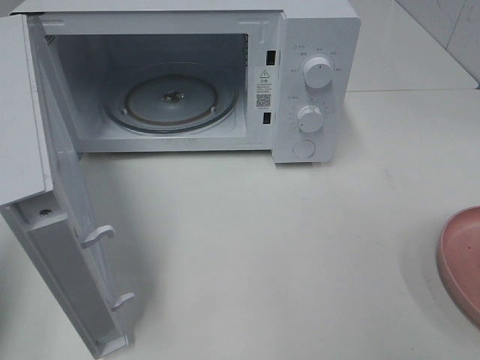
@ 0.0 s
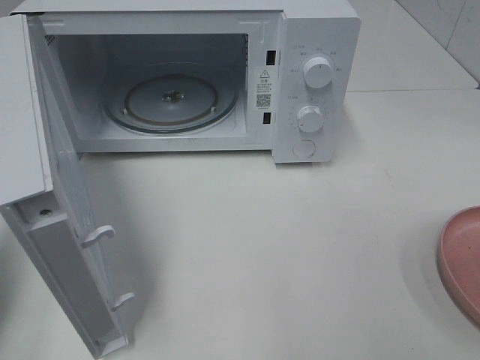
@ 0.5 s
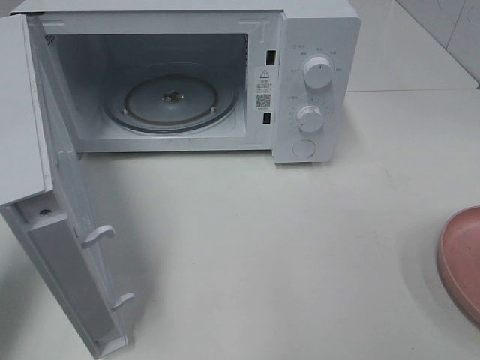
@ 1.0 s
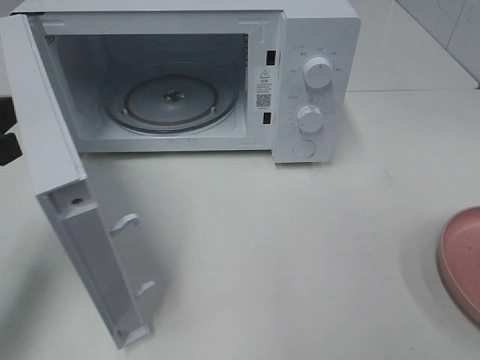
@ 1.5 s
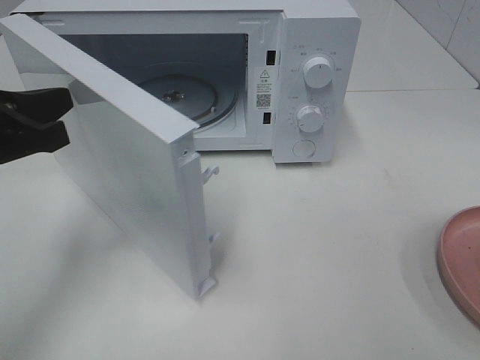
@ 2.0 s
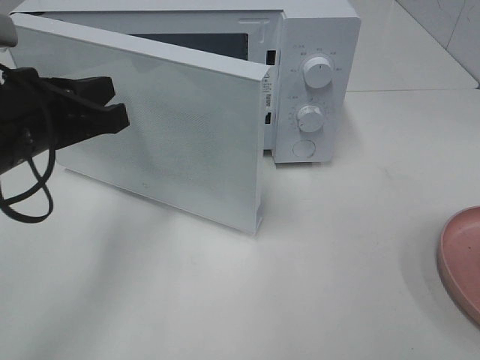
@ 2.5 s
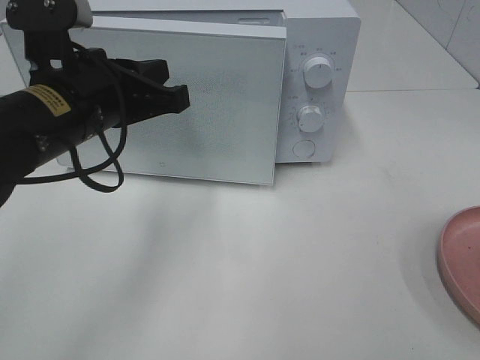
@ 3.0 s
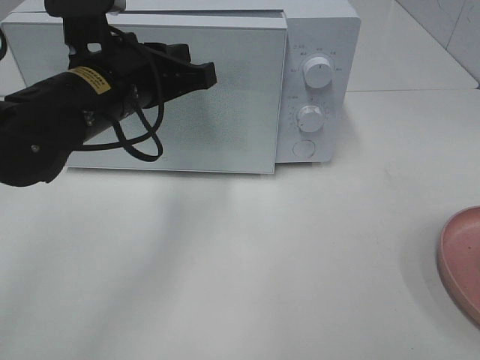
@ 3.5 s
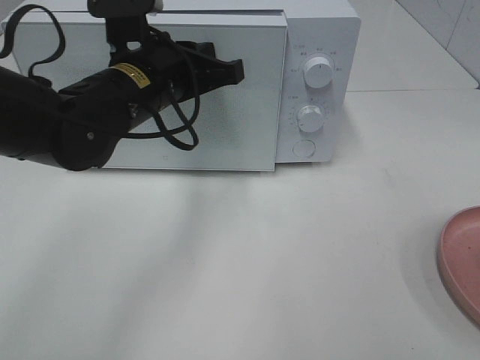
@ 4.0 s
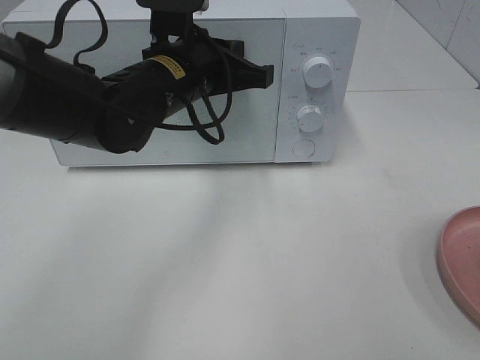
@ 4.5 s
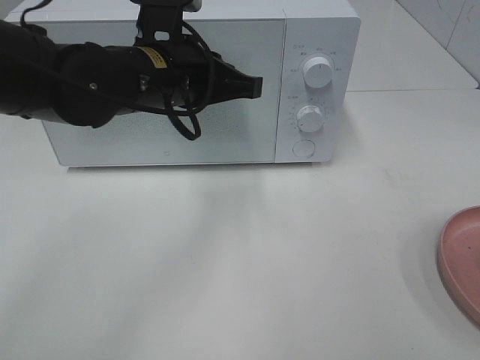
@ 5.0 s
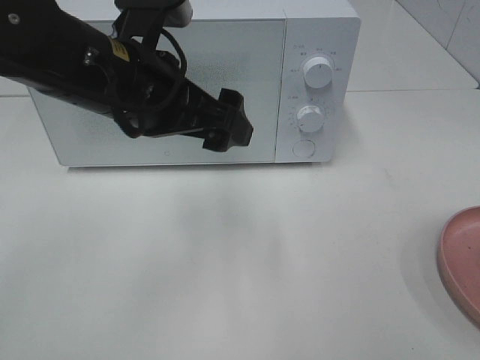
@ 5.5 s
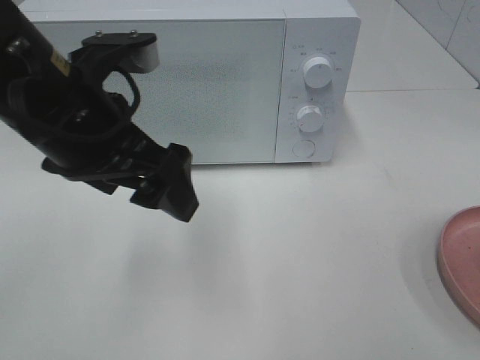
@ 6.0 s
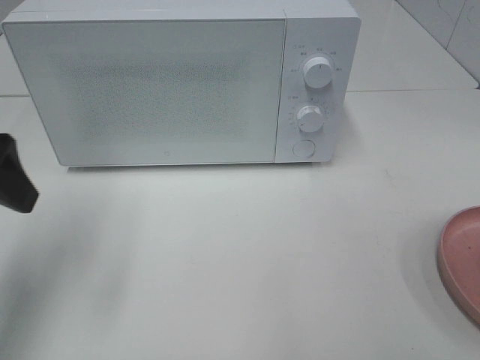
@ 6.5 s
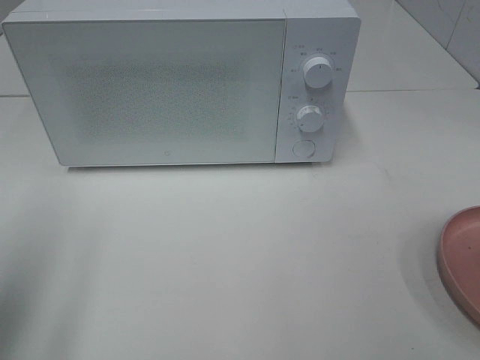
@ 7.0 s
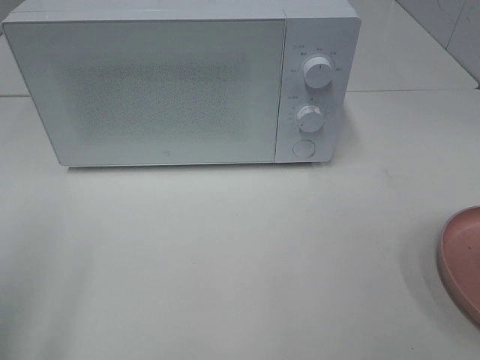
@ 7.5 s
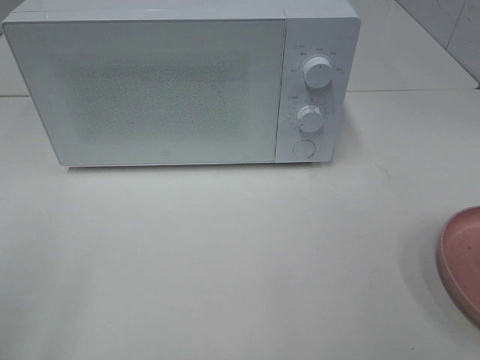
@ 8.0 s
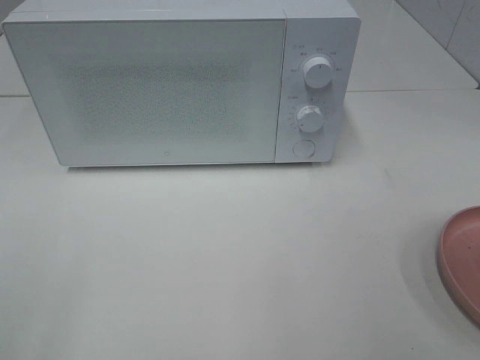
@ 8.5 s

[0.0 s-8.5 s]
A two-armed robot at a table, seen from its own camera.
Task of the whole recording: Heat the burger.
Step, 0.0 to 4.5 s: Left hand: close the microwave door.
0.0 to 2.0 s: The left gripper is displaced to the right, forward and downward by some 15 cm.
2.0 to 4.0 s: The left gripper travels to the right and forward by some 15 cm.
4.0 to 6.5 s: The left gripper shifts approximately 20 cm to the left and backward, and opens up.
6.5 to 8.5 s: The left gripper travels backward by some 20 cm.

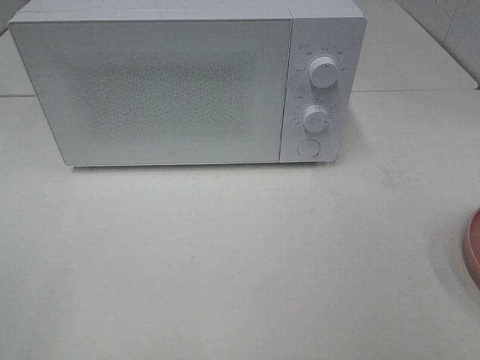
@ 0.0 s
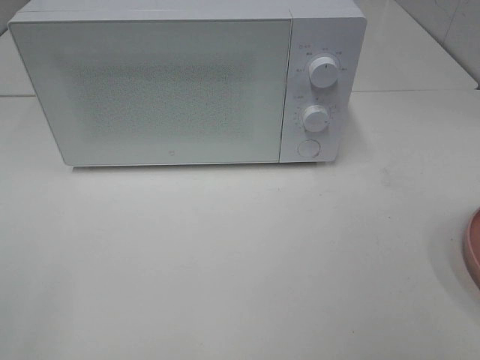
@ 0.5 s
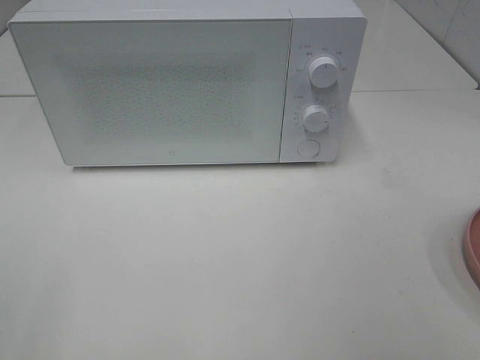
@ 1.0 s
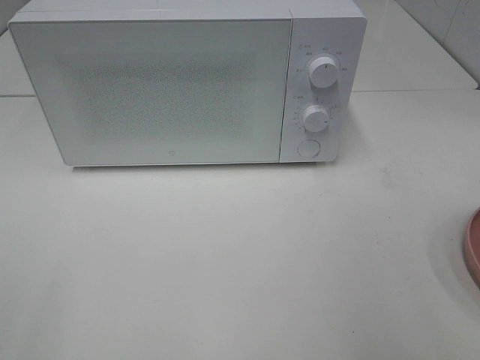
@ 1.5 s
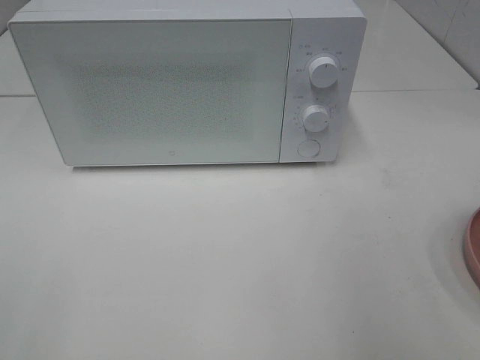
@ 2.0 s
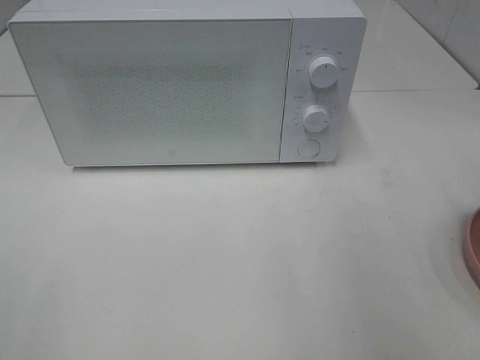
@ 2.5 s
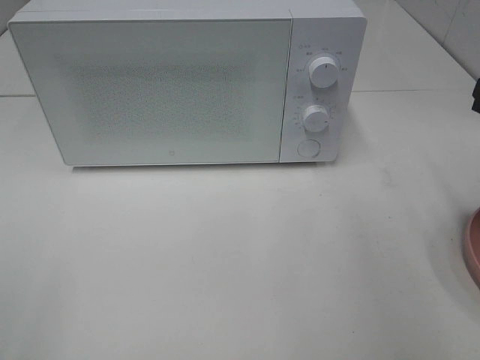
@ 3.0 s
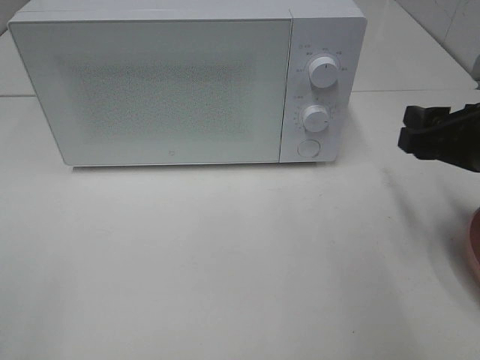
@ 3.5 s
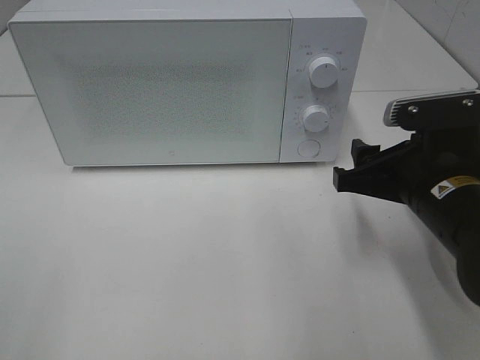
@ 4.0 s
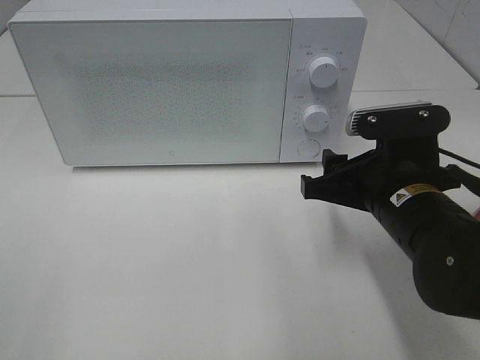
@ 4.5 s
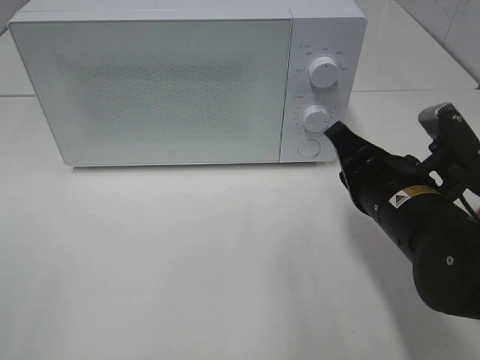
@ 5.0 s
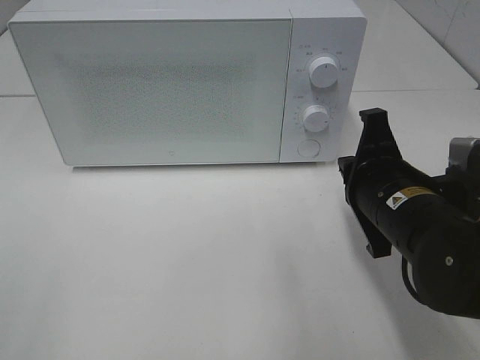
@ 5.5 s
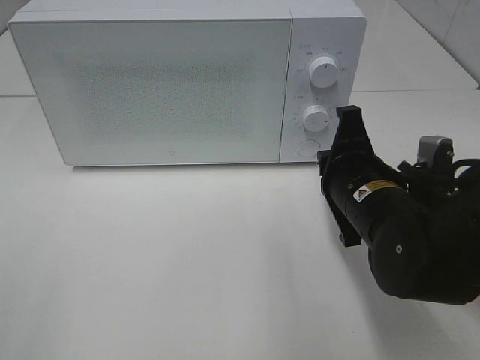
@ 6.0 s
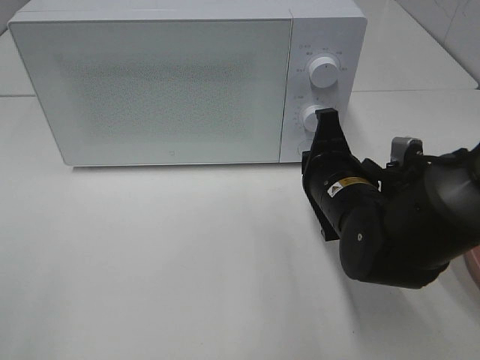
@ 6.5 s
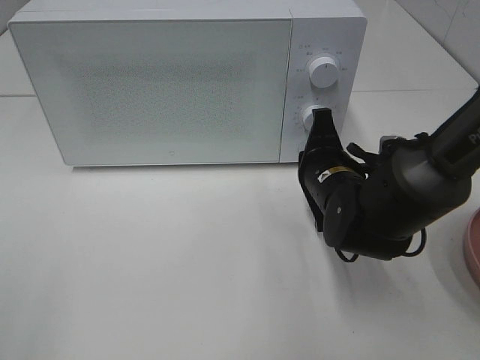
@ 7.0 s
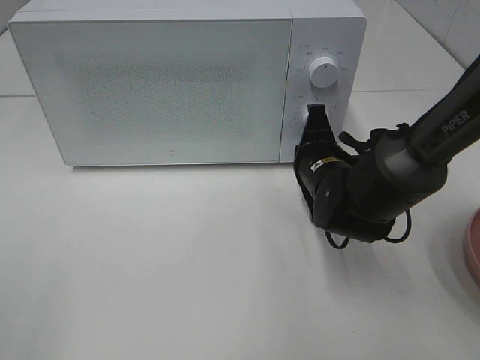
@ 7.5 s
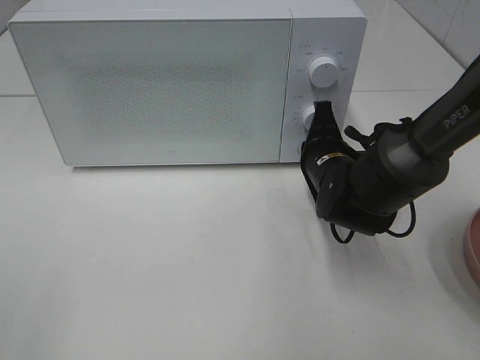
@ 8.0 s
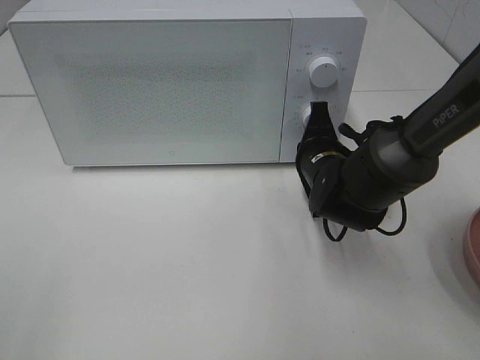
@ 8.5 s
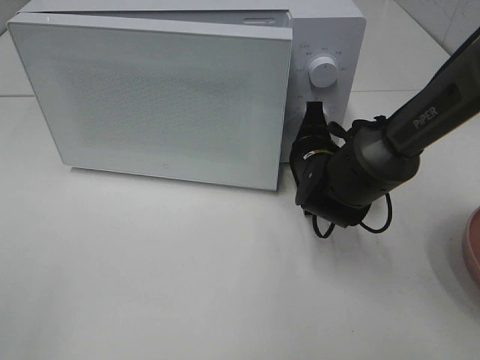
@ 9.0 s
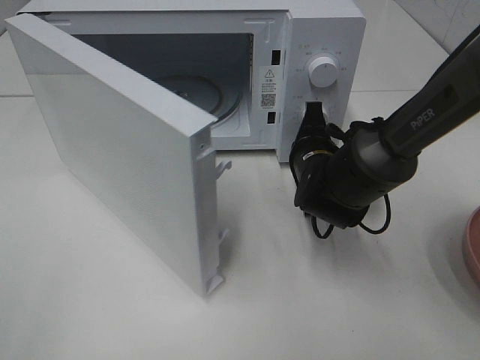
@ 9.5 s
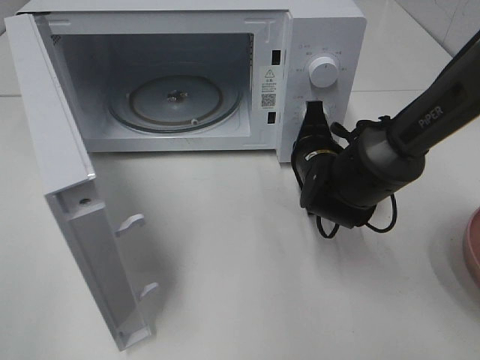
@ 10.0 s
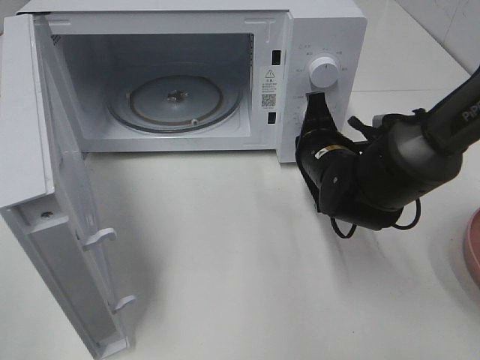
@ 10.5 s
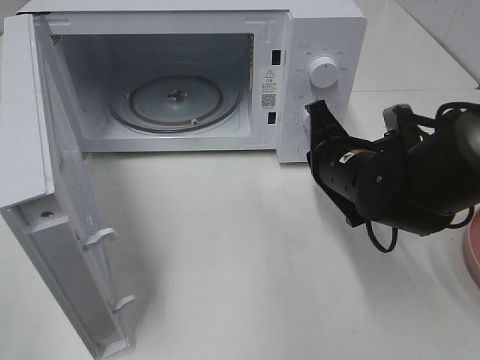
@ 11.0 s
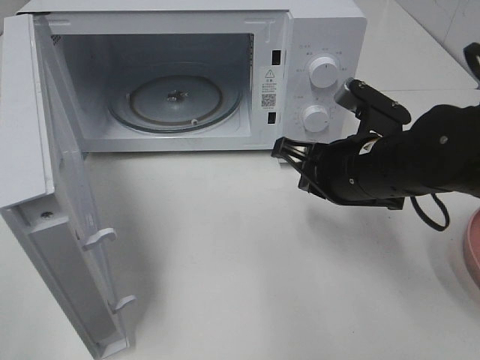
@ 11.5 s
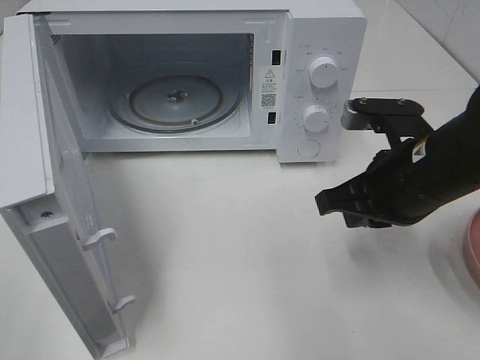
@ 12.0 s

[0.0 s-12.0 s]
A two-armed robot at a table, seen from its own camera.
Task of the whole recording: Heat the burger.
Step, 0.0 to 10.0 s: Right hand: press the switch.
2.0 to 4.0 s: The right gripper goes some 20 cm downward, to the left and forward.
4.0 to 6.0 s: The right gripper heads to the left, covering about 5 cm, and closes its fingers.
6.0 to 8.0 s: The right gripper moves forward, about 10 cm.
10.0 to 12.0 s: The right gripper is displaced backward, upward and to the right by approximately 15 cm.

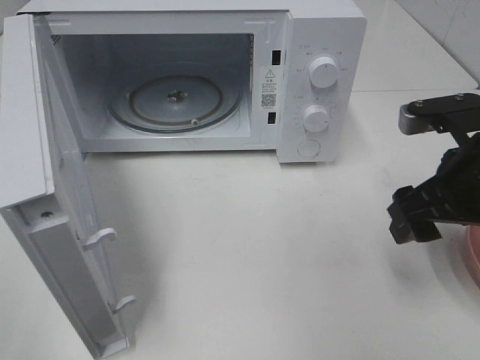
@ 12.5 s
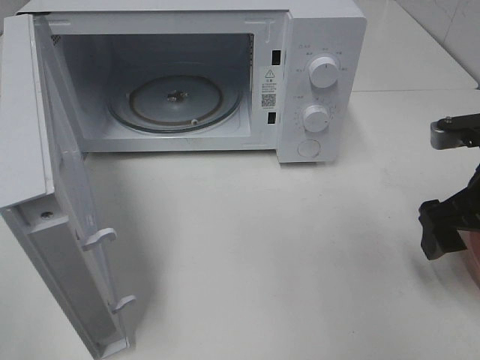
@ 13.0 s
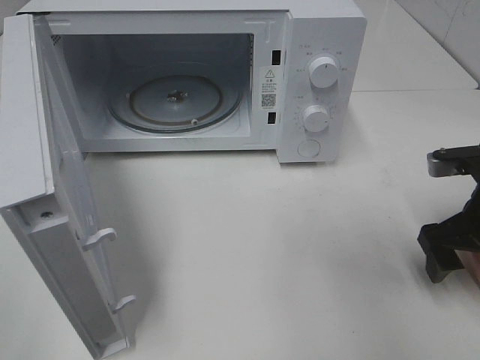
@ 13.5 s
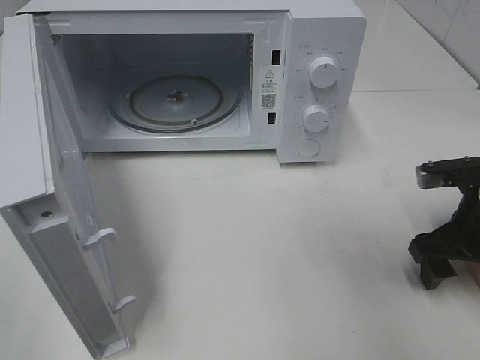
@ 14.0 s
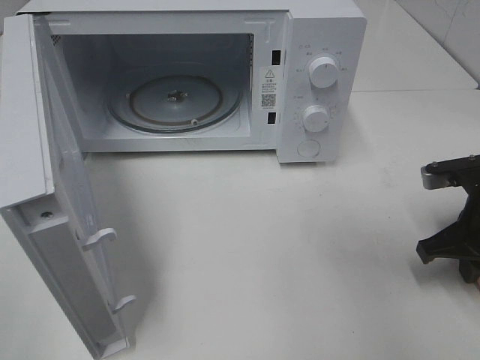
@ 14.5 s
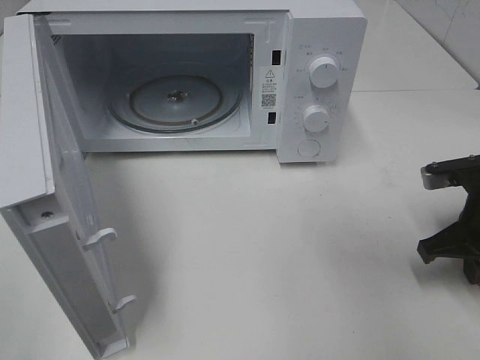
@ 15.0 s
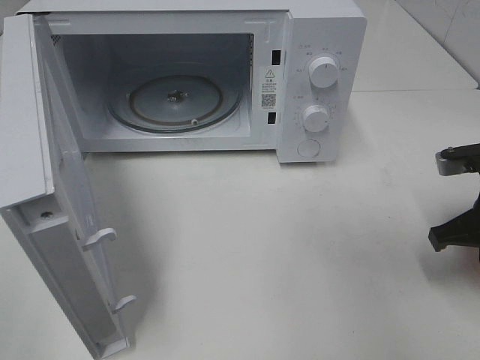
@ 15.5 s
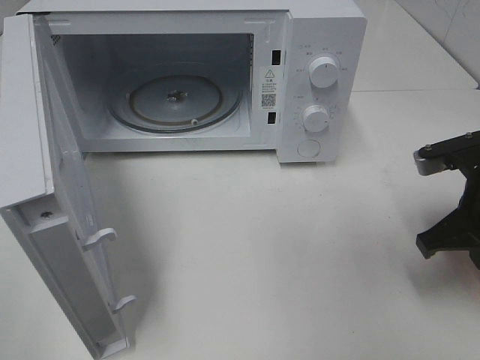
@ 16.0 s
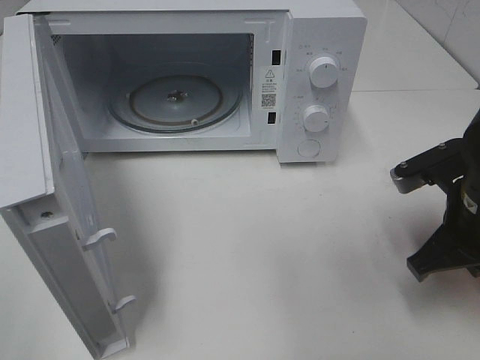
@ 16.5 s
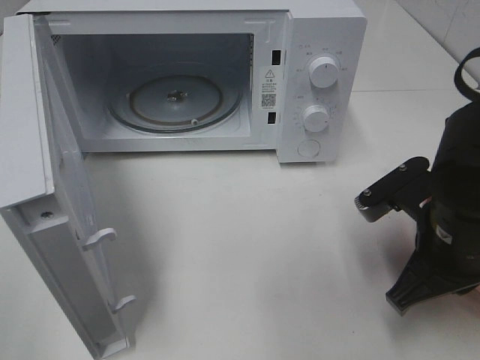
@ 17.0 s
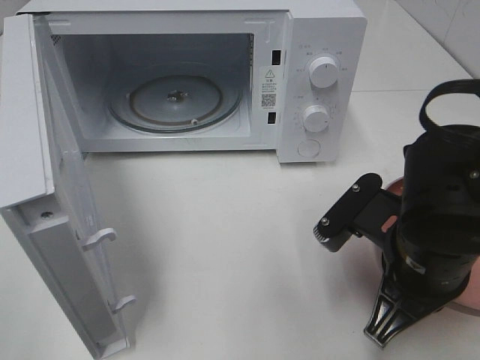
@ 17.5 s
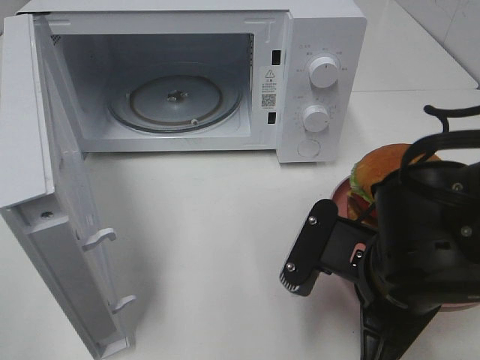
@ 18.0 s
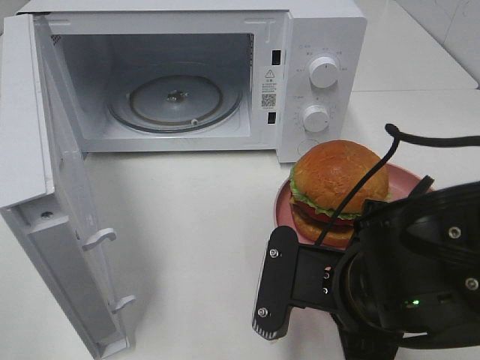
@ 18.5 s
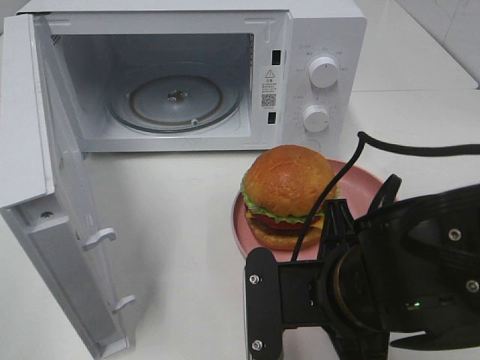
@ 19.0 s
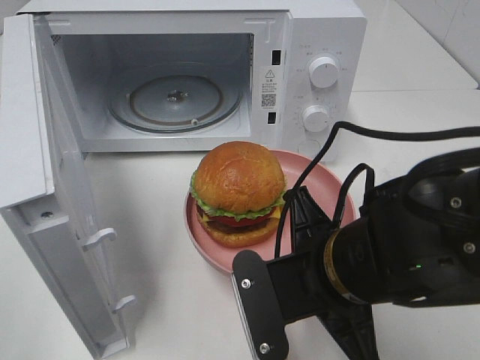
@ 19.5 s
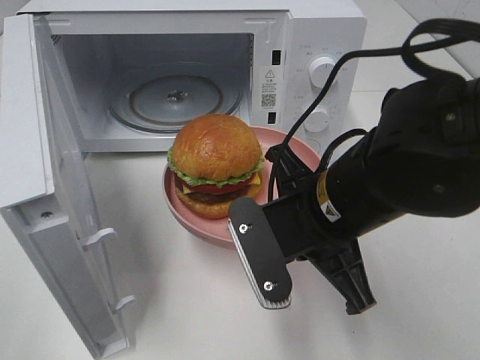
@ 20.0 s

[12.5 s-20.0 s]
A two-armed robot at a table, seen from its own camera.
Task of the whole recording: Heat the burger.
Step, 12.5 to 14.5 s: Right hand: grab the plate with the hamburger.
12.5 to 14.5 s: The right gripper heads downward, covering approximately 10 cm, and closes its fingers.
14.5 to 16.5 s: The right gripper travels to the left by about 5 cm.
16.5 to 18.0 s: The right gripper travels to the left and backward by about 15 cm.
18.0 to 20.0 s: The right gripper goes approximately 5 cm forward.
